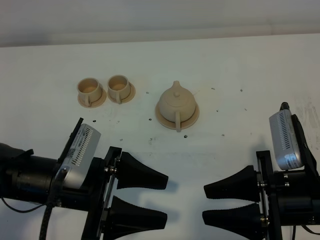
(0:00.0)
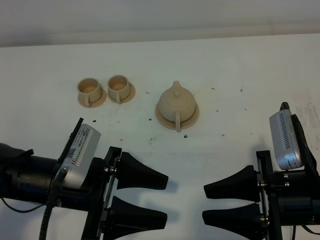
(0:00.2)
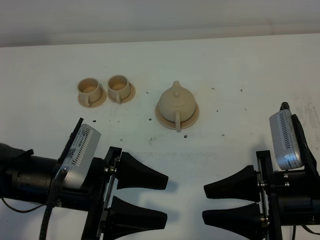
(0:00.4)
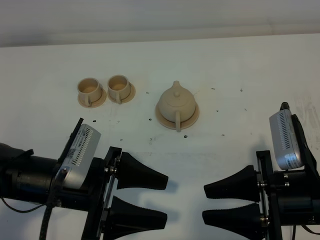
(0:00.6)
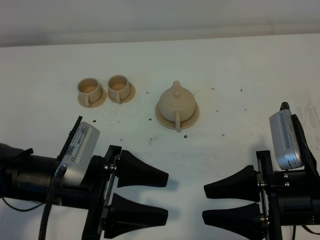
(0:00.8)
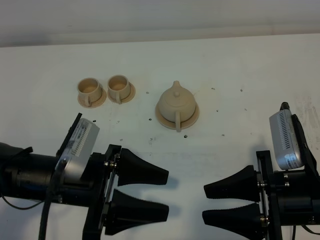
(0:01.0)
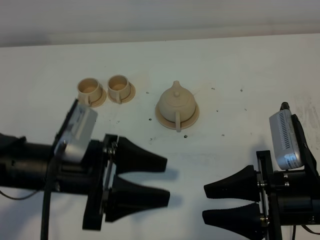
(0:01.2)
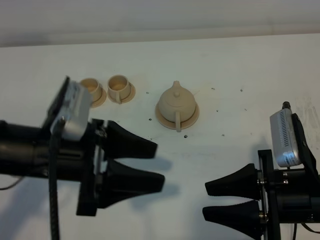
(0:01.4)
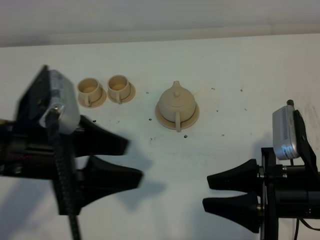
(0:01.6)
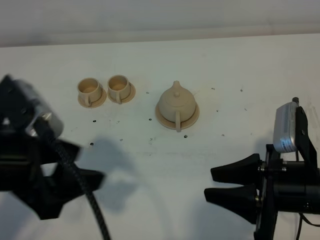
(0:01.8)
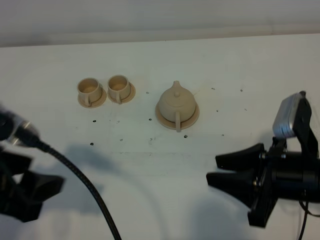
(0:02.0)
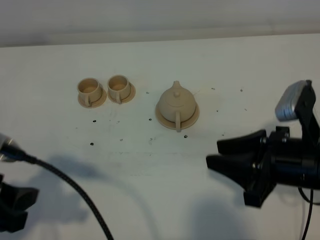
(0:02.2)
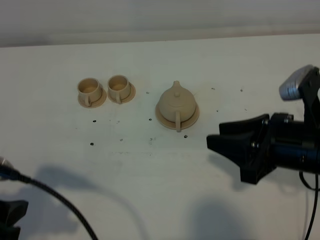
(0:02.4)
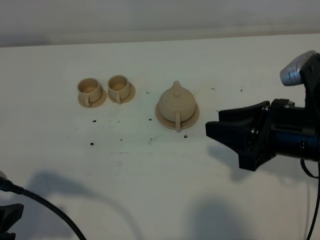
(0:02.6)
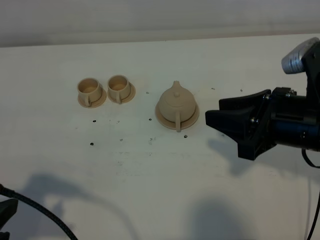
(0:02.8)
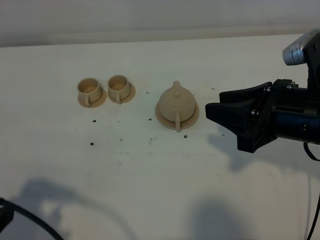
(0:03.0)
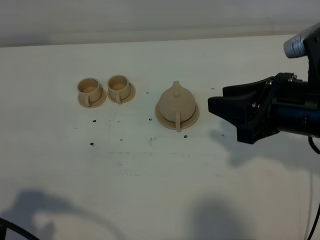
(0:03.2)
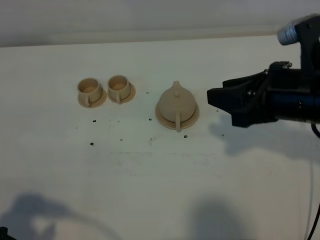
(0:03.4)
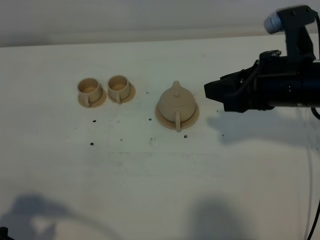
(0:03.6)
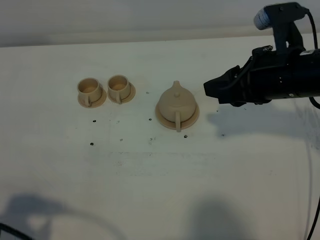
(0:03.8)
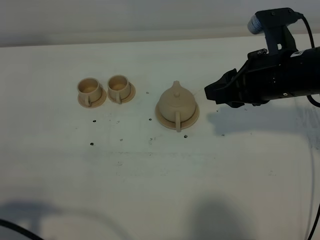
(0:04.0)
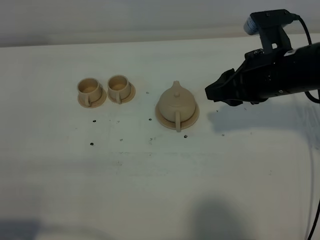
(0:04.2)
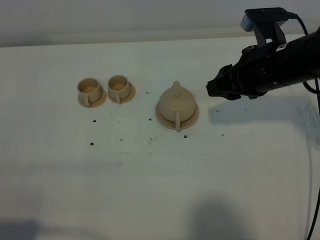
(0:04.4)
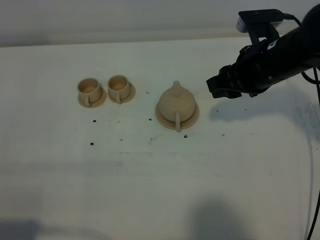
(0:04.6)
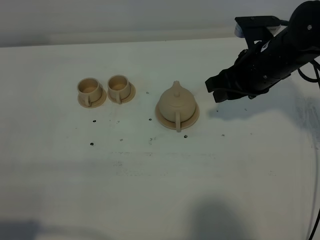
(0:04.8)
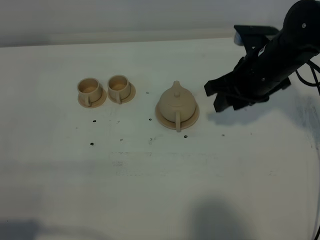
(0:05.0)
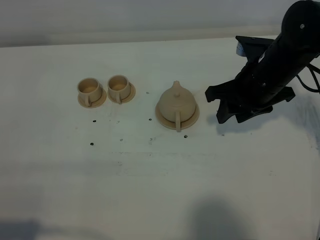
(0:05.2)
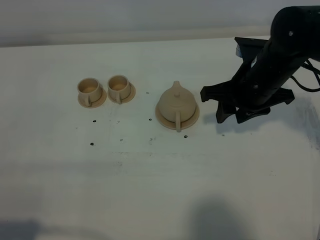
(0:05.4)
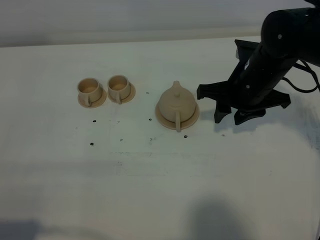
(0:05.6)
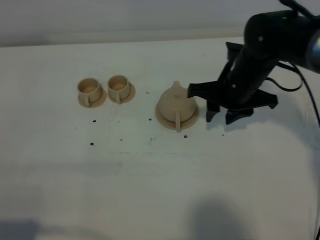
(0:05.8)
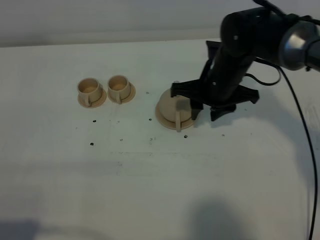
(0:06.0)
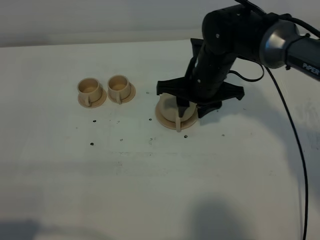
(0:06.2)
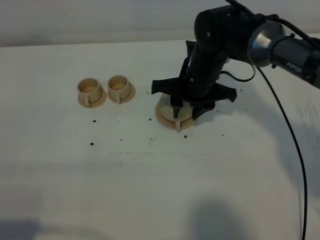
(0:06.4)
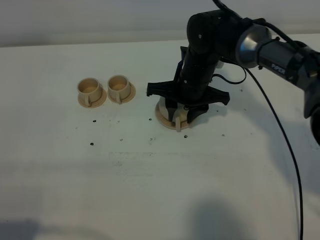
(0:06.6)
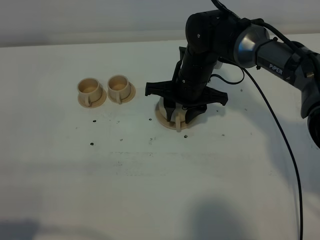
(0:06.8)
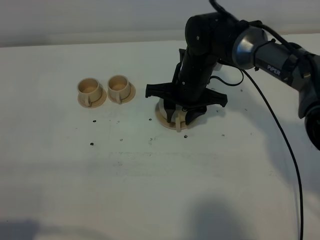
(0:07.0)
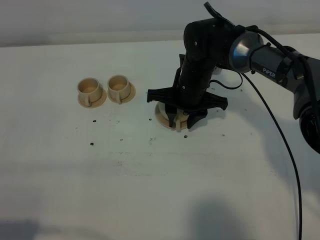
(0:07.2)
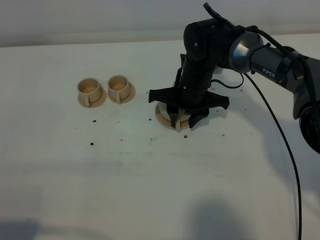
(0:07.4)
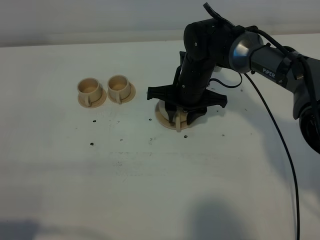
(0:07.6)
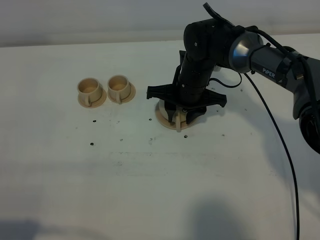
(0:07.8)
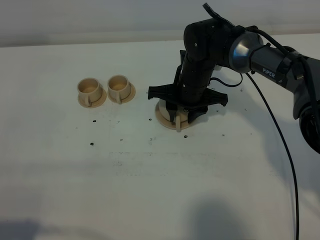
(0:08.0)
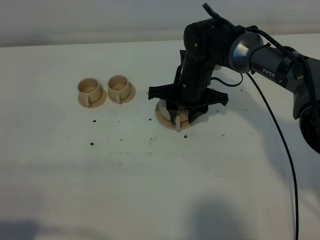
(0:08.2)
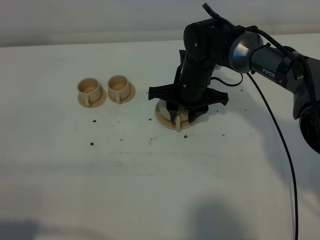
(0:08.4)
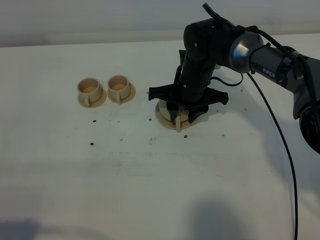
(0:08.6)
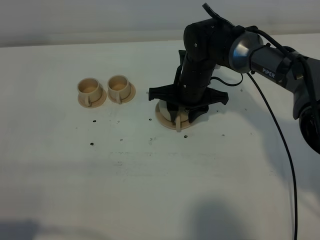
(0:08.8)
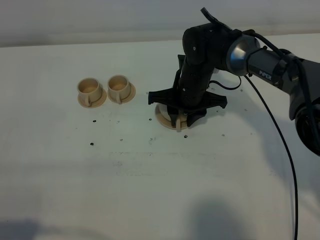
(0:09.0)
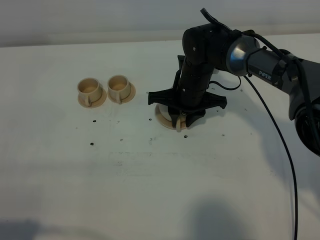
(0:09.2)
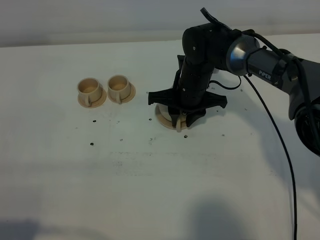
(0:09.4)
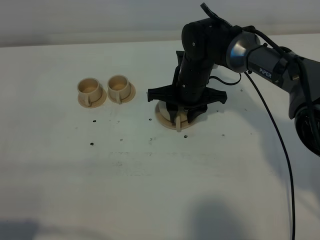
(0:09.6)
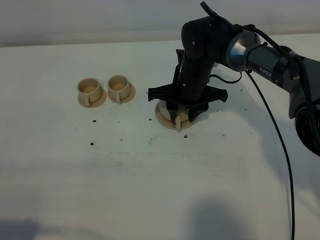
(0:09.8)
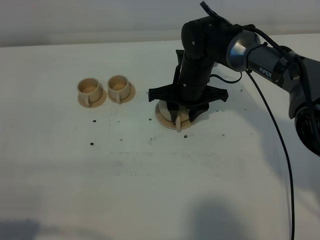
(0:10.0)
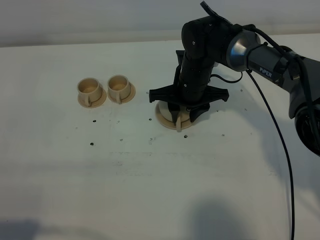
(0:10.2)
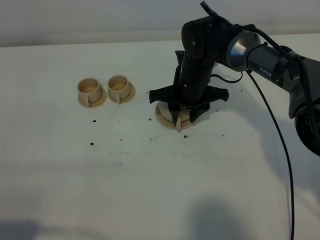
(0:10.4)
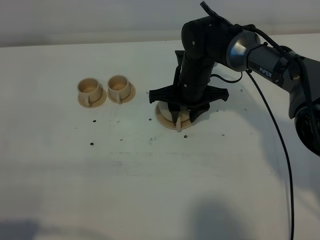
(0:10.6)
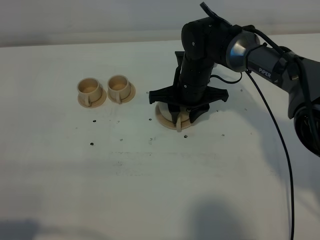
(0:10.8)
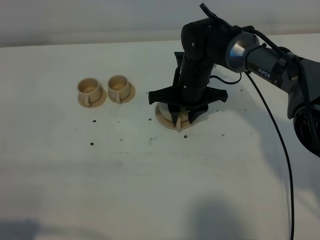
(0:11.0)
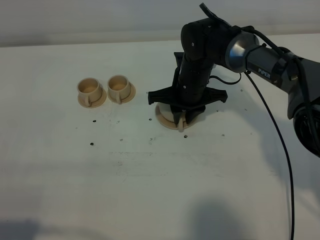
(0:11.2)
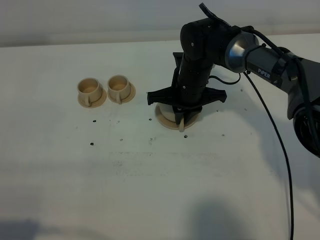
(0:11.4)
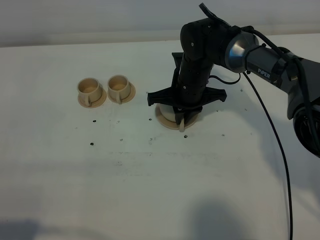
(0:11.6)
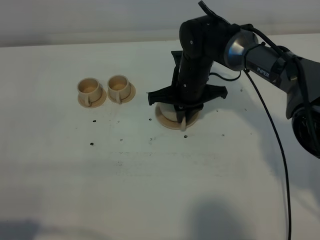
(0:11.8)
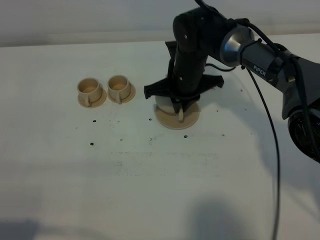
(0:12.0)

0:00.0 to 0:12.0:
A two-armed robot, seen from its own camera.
Task of the whole recording: grasp the brown teapot and pour the tea into the two brown teacups one by one, put the brown teapot back in its original place.
Step, 0:00.0 to 0:11.8: Pick up the teapot with the right gripper.
0:00.0 to 0:01.6: The left gripper is displaced upward by approximately 10 cm.
0:01.6 to 0:03.0: The left gripper heads to the left and backward, covering about 15 cm; the right gripper heads upward and forward, covering roughly 10 cm.
0:03.0 to 0:04.4: The right gripper shifts about 10 cm forward; the left gripper shifts roughly 5 cm backward.
0:04.4 to 0:06.0: The right gripper heads to the left and downward, covering about 10 cm.
0:06.0 to 0:07.6: The right gripper shifts by some 5 cm.
0:07.6 to 0:09.0: The two grippers keep their place.
0:09.0 to 0:10.4: Both grippers stay about where they are.
0:10.4 to 0:12.0: The right gripper closes up.

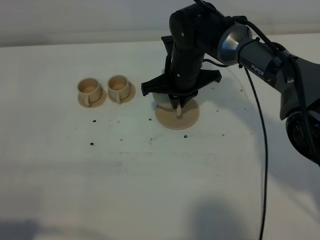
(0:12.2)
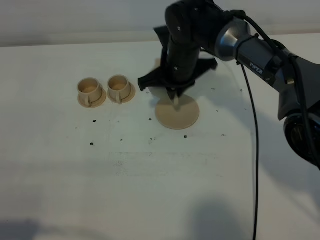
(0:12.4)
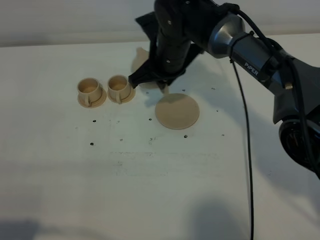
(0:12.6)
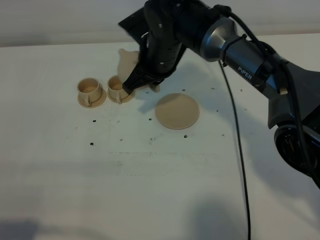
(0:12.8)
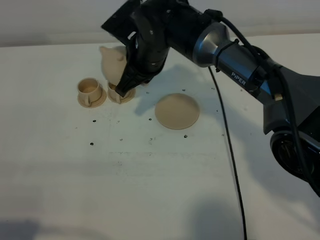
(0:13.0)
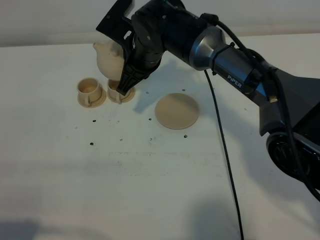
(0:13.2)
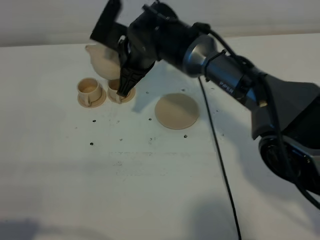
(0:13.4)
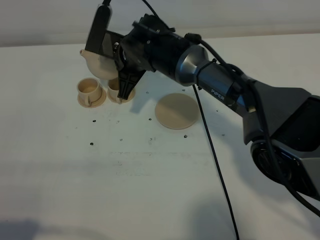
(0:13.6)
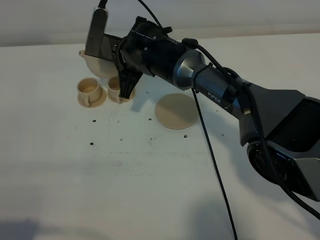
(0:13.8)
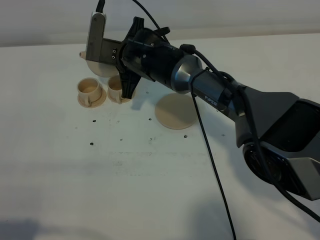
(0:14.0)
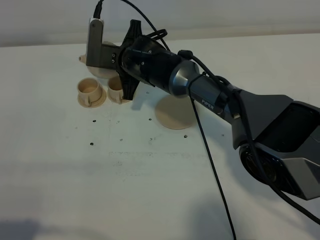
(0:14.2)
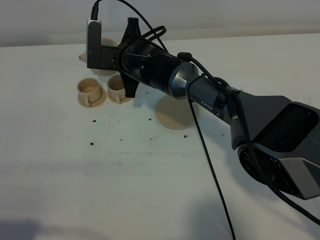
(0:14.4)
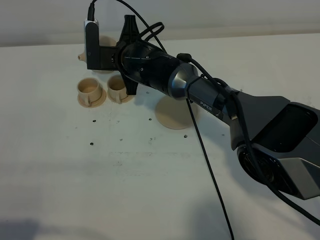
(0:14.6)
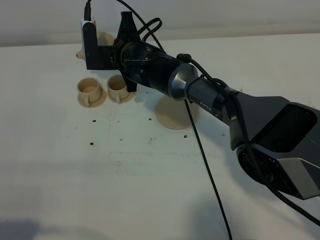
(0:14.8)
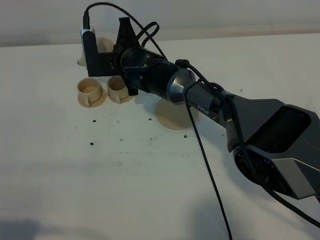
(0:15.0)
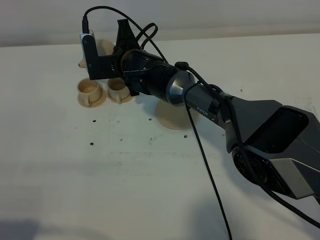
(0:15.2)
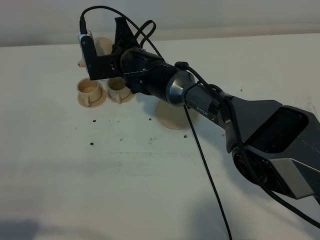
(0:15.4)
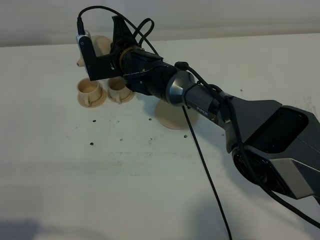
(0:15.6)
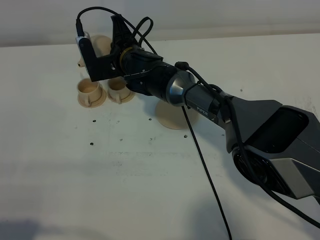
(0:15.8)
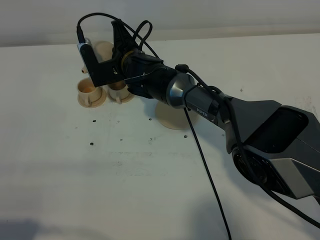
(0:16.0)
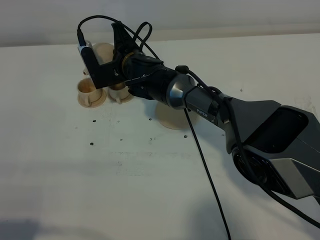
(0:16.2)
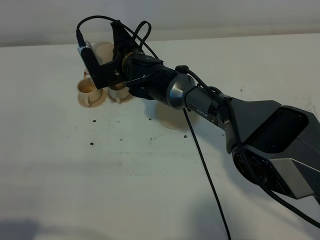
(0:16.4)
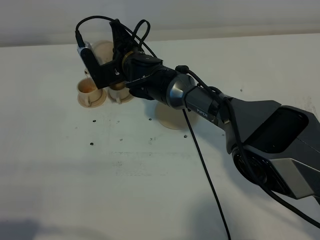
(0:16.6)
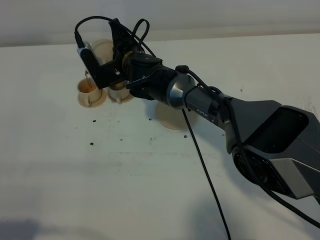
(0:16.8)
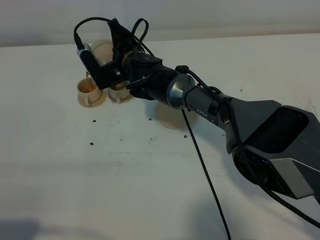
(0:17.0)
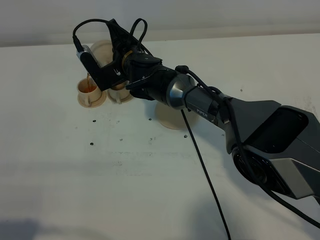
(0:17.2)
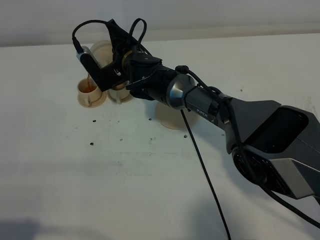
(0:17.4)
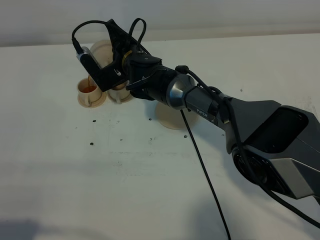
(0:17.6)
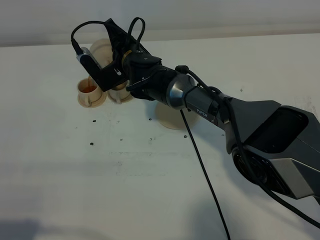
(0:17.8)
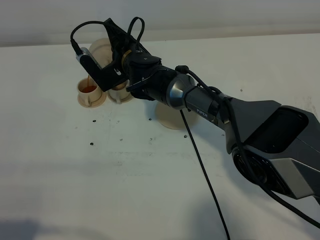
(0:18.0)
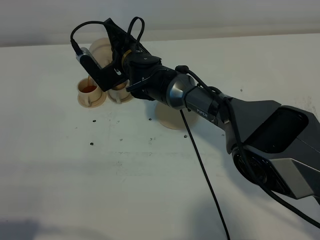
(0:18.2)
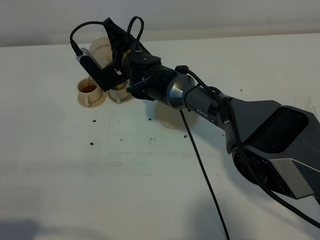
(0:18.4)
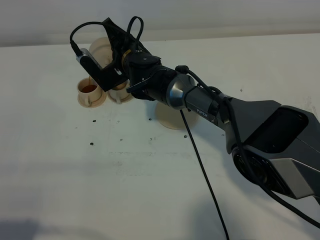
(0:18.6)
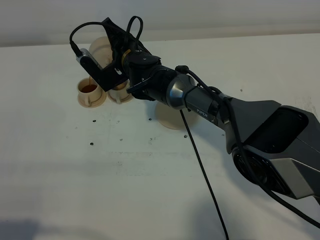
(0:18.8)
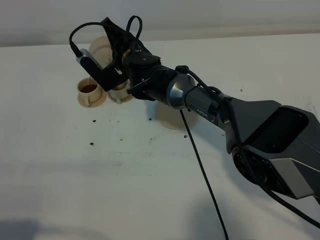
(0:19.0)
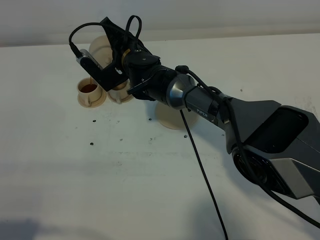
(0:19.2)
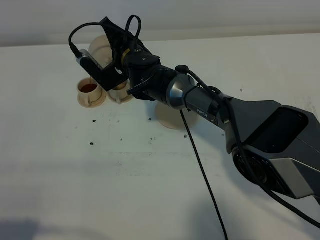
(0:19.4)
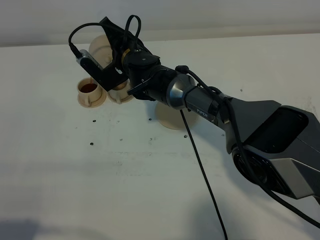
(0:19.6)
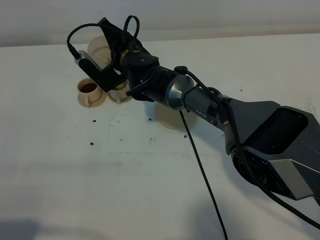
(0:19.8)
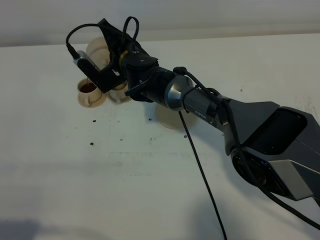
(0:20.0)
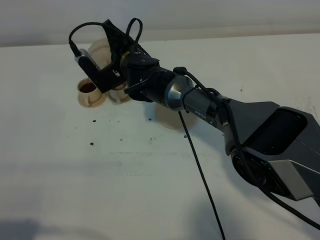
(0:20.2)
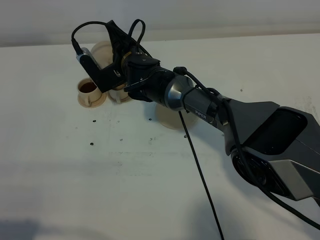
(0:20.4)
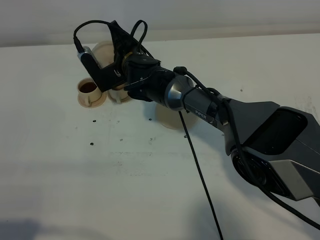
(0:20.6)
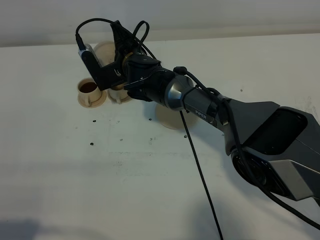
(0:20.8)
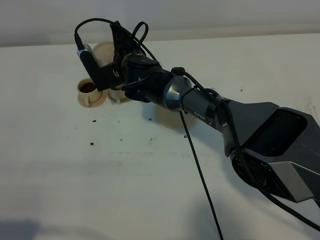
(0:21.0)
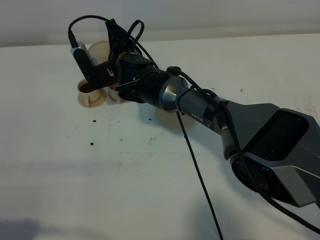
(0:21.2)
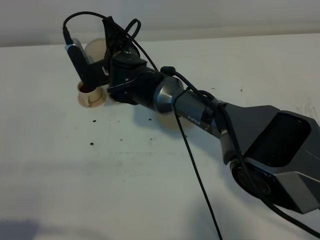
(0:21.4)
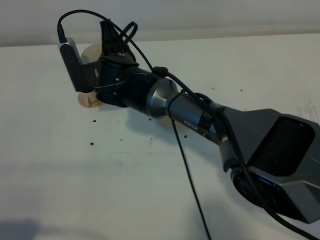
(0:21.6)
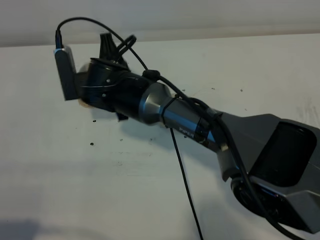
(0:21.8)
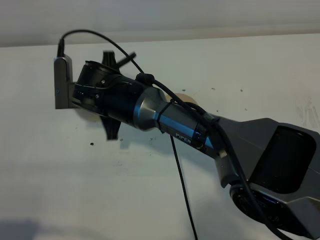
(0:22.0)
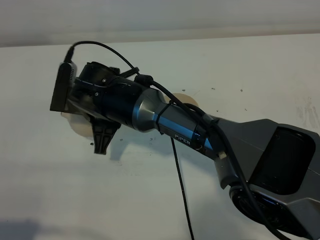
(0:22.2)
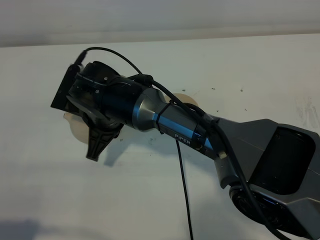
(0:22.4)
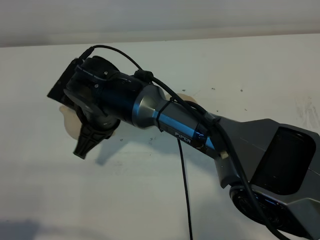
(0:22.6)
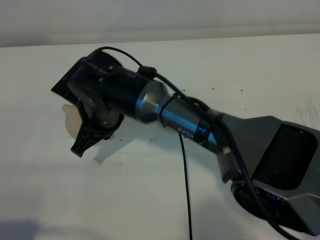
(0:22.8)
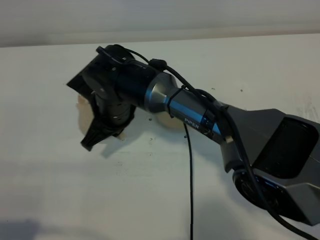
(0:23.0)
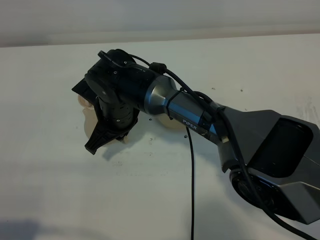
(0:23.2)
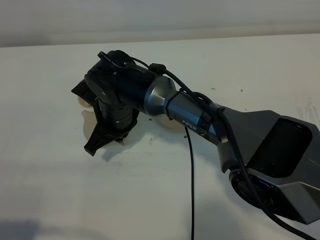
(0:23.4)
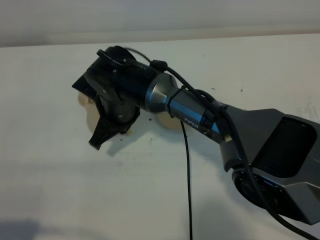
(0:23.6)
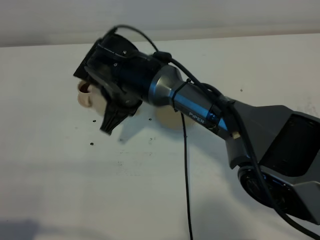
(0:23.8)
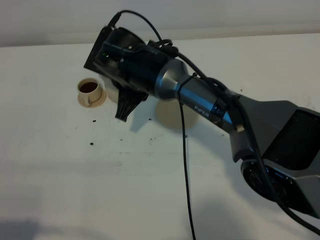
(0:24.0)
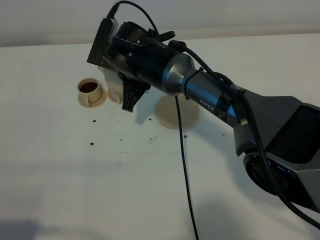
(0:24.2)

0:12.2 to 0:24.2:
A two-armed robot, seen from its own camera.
Task of the whole recording: grasp the brown teapot and pour the tea into the two brown teacups one by one, put the brown teapot back in its original place.
Step, 0:12.2 to 0:21.2: Pour tea into the teacup with the right gripper.
0:12.2 to 0:13.8: The right gripper travels to the left by roughly 10 cm.
0:15.2 to 0:16.6: The grippers stay close to where they were, moving slightly.
0:16.6 to 0:21.2: The grippers make only small movements.
0:21.2 to 0:22.6: The right gripper heads backward, covering roughly 10 cm.
0:22.6 to 0:24.2: The right gripper heads forward and to the right, covering some 10 cm.
